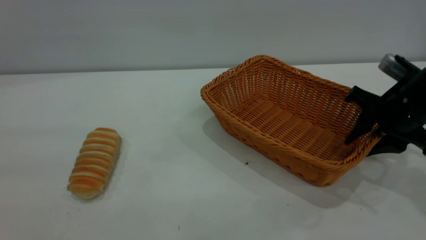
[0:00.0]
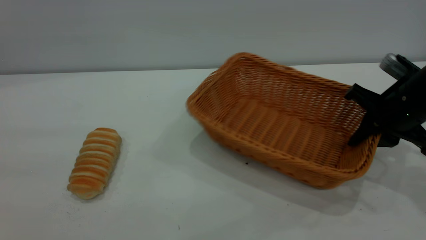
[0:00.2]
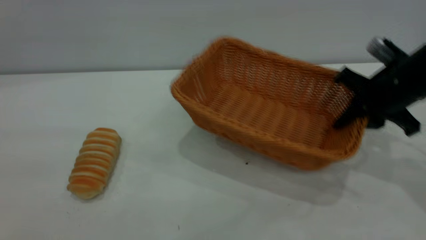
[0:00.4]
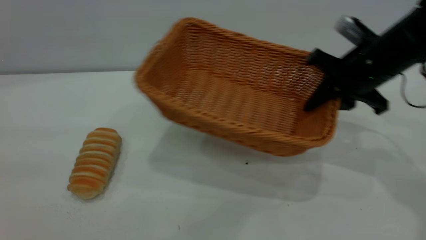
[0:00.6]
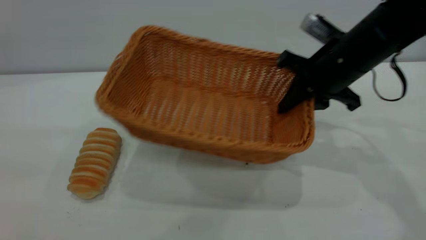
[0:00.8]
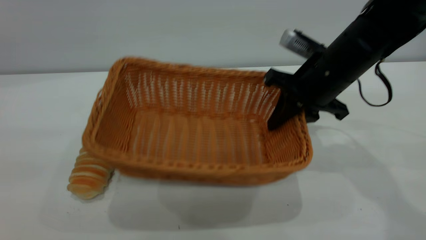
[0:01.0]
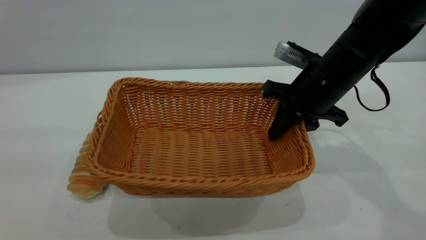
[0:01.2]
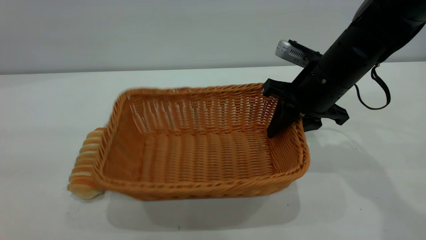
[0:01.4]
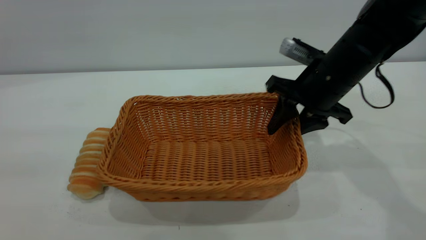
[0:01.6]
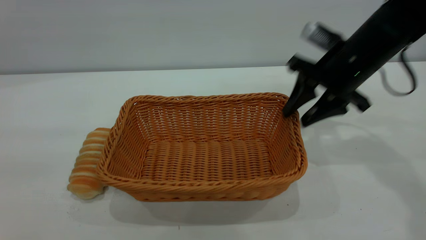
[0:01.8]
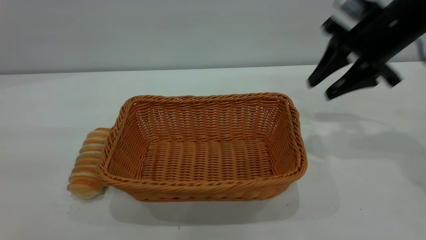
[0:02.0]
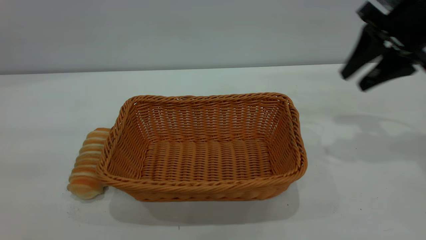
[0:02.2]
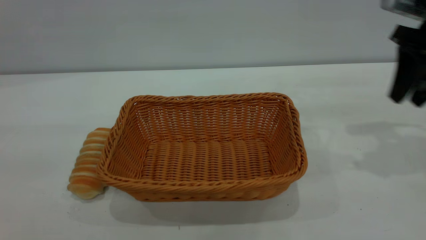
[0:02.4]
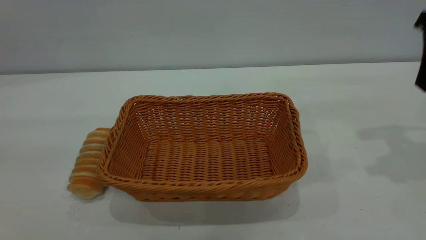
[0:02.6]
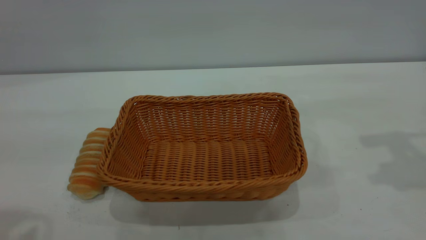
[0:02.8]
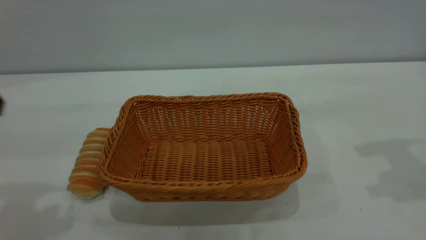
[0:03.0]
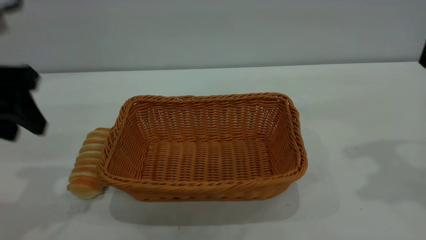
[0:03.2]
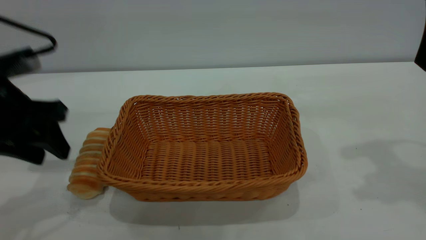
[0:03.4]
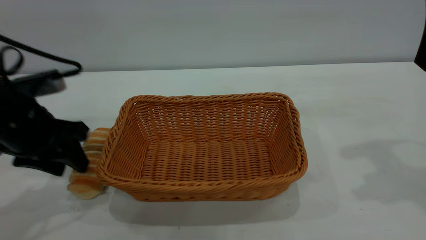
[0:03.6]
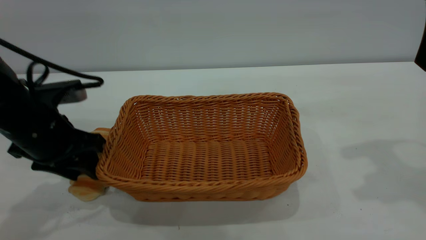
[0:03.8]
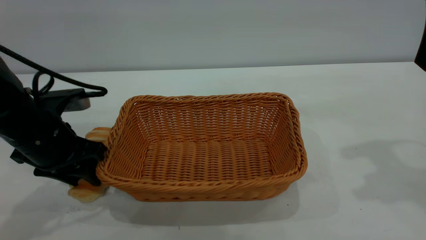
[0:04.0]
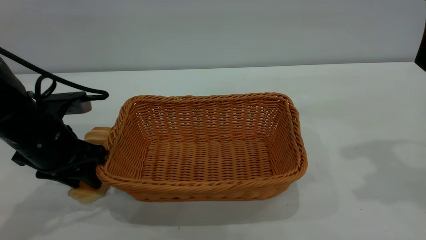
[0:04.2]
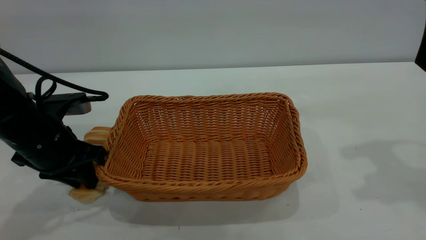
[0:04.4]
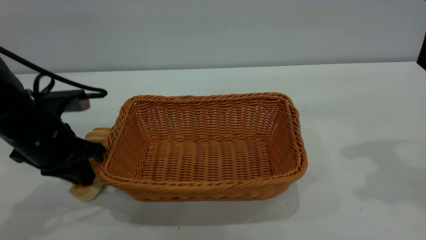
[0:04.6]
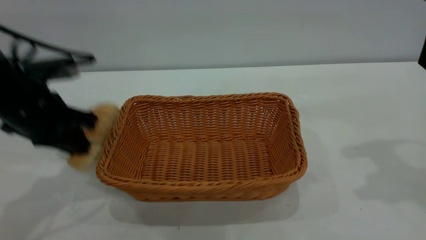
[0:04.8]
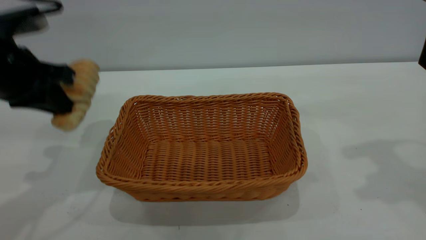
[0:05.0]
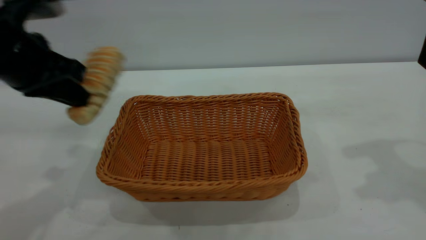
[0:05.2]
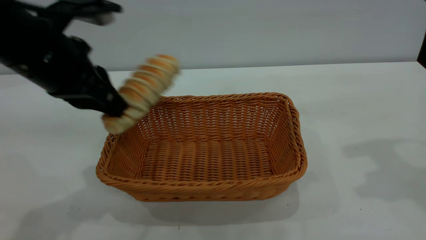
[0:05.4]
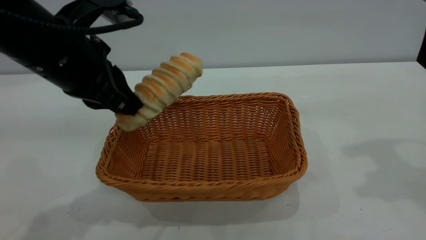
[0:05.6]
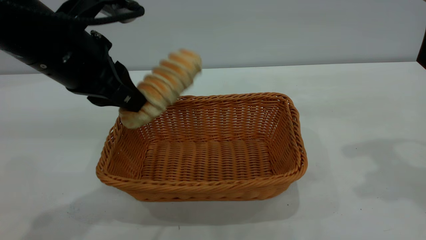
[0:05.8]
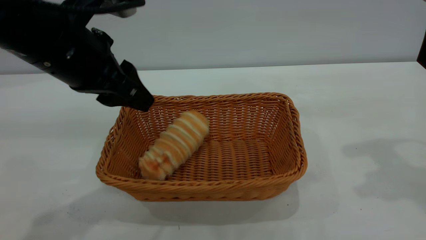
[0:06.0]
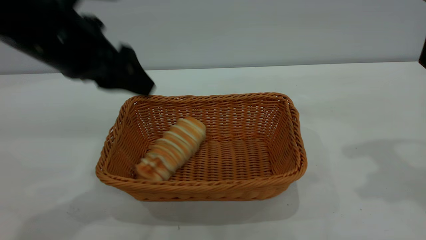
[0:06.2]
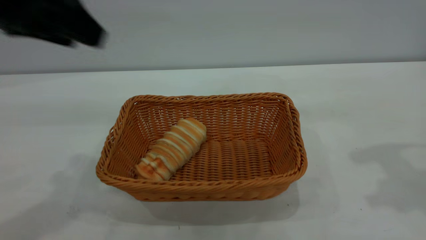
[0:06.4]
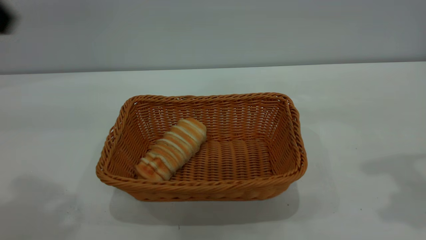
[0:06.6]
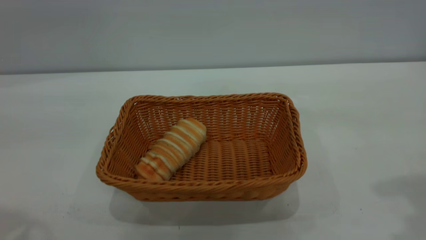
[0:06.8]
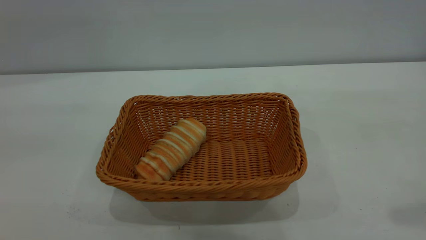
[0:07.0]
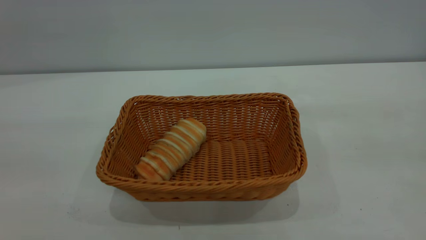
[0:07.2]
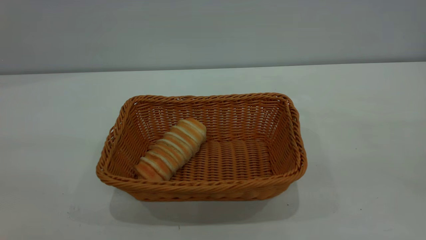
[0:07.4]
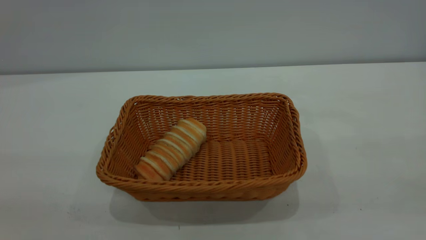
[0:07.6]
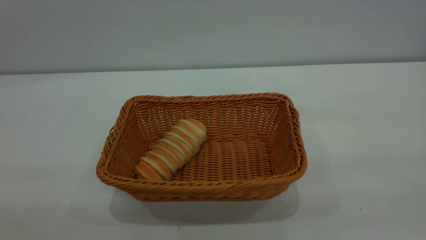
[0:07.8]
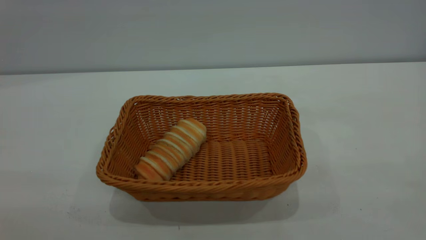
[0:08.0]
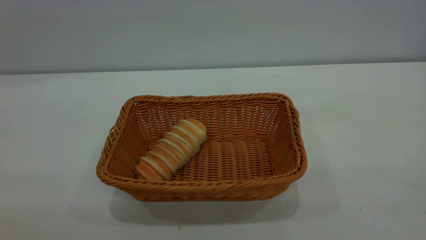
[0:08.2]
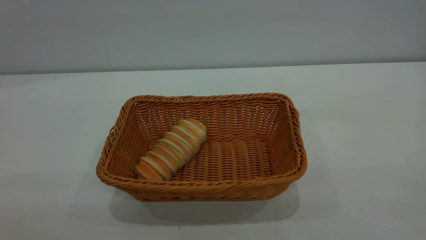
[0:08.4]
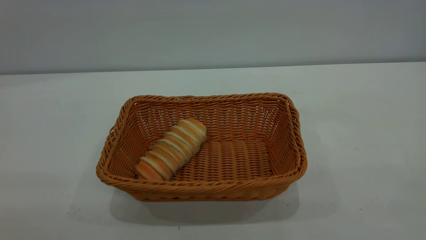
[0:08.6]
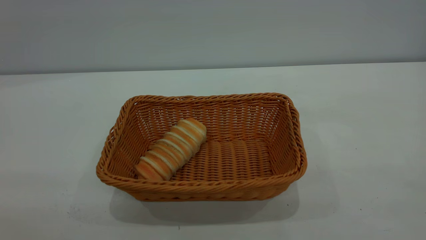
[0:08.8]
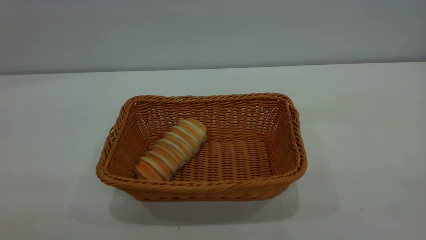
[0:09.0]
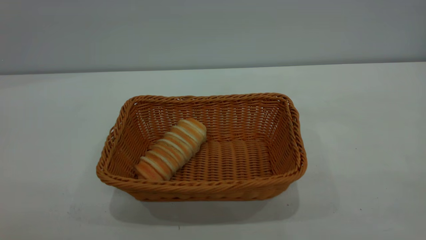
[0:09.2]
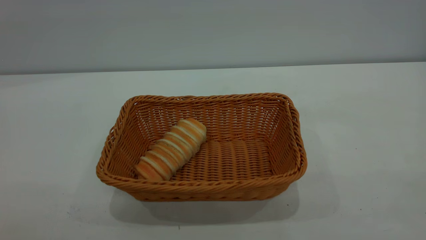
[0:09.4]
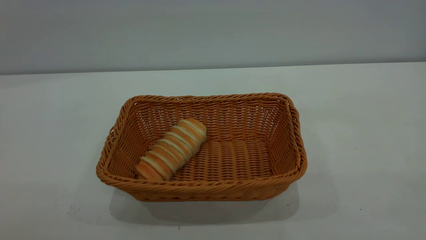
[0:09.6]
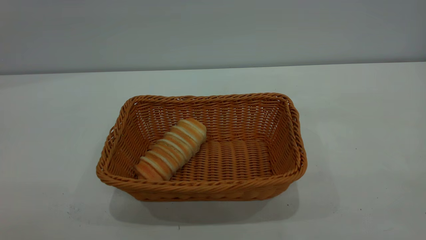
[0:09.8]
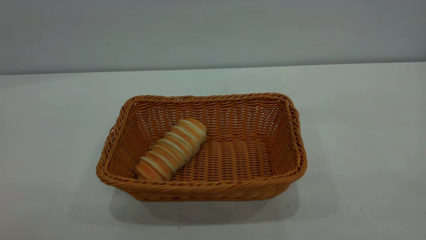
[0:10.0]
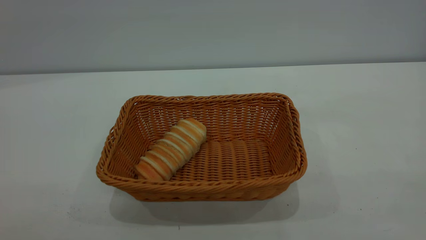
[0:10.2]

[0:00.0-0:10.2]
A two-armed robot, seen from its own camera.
Task of the whole recording: One hand grasps the yellow basket and places it in the middle of the table, while the other hand picks up the long bread and puts it into the yellow basket.
Step, 0:05.2 to 0:06.2: place the bread into the basket.
0:00.0 to 0:01.4: The right gripper travels to the left by some 10 cm, and closes, then opens again.
0:01.4 to 0:03.0: The left gripper heads forward and downward, covering roughly 20 cm; the right gripper travels upward, to the right and backward by some 25 cm, and opens.
0:03.0 to 0:04.4: The left gripper travels downward by some 15 cm, and closes up.
0:04.4 to 0:05.8: The left gripper is displaced upward and to the right by about 15 cm.
0:05.8 to 0:07.2: The left gripper heads backward, upward and to the left, covering about 30 cm, and opens up. Meanwhile the right gripper is displaced backward by approximately 20 cm.

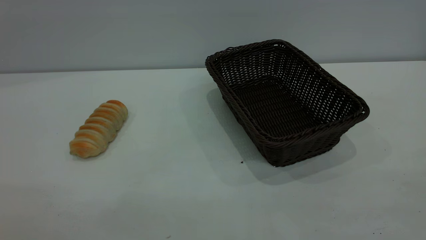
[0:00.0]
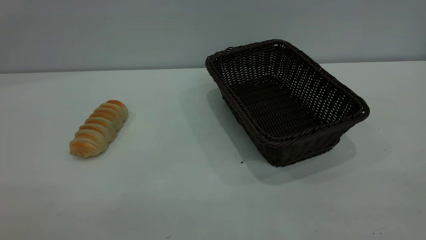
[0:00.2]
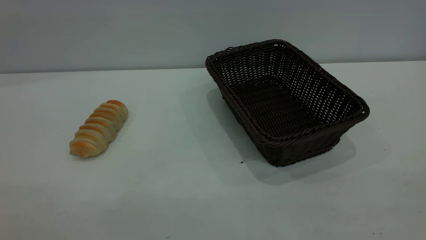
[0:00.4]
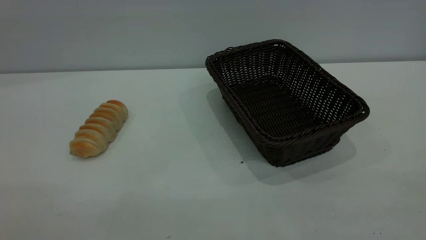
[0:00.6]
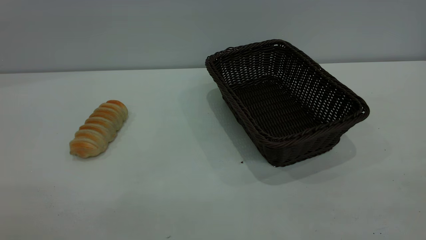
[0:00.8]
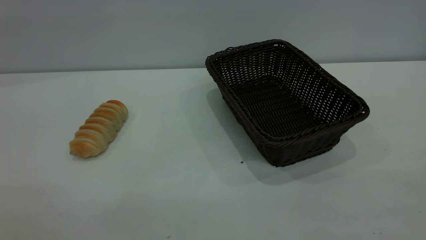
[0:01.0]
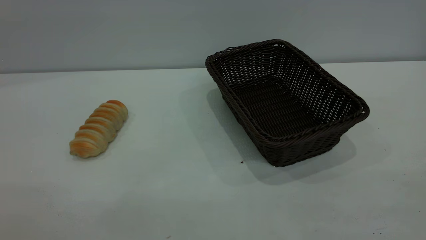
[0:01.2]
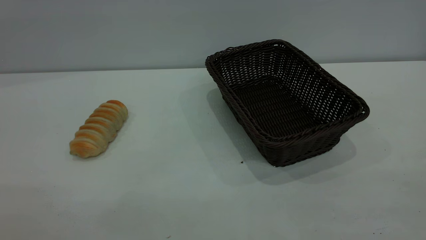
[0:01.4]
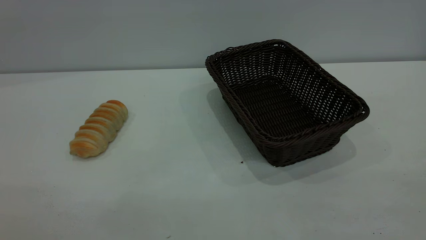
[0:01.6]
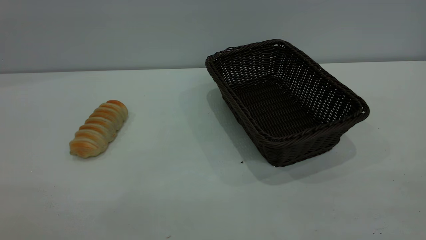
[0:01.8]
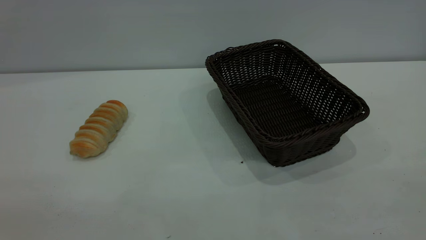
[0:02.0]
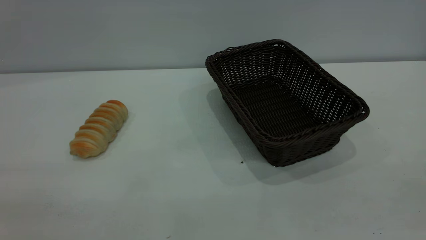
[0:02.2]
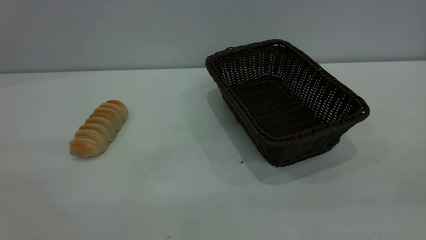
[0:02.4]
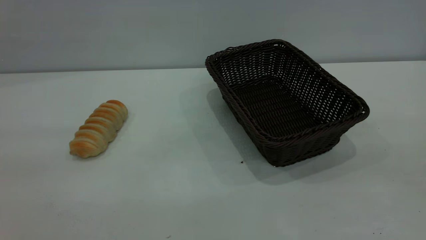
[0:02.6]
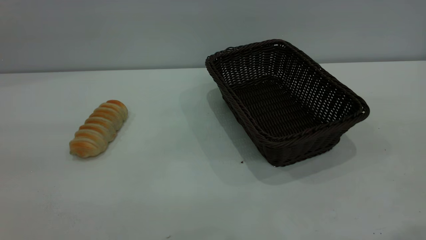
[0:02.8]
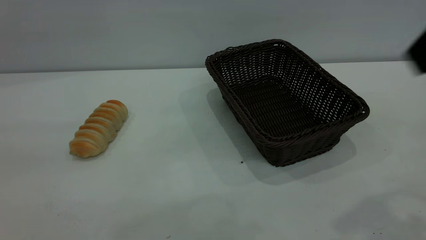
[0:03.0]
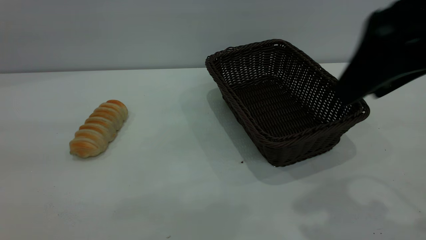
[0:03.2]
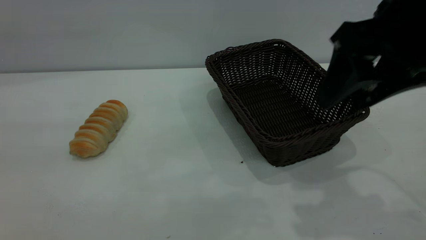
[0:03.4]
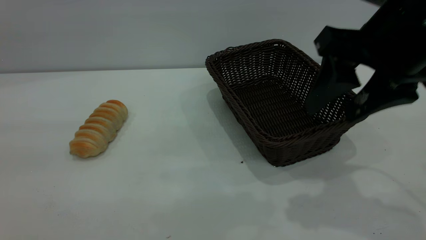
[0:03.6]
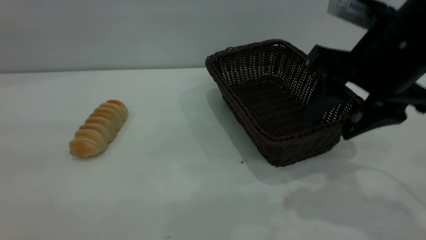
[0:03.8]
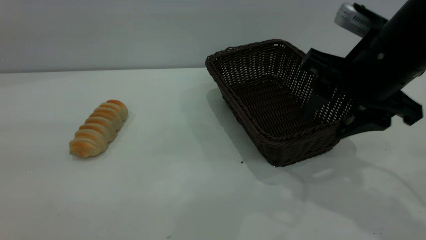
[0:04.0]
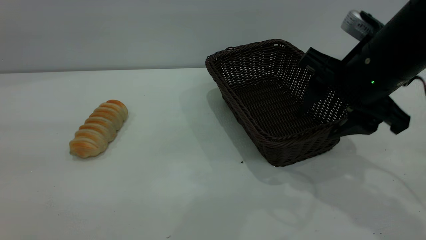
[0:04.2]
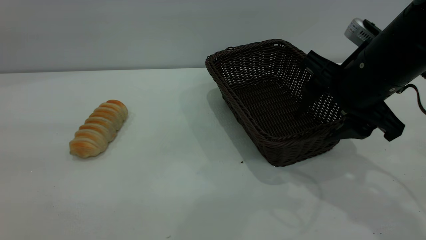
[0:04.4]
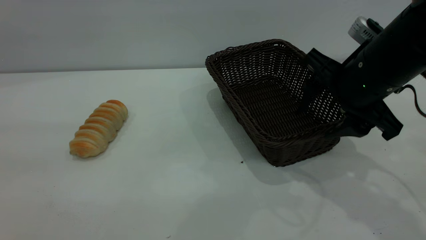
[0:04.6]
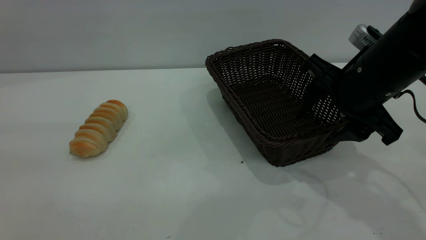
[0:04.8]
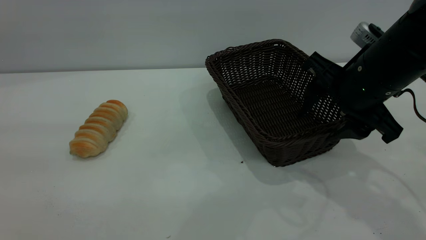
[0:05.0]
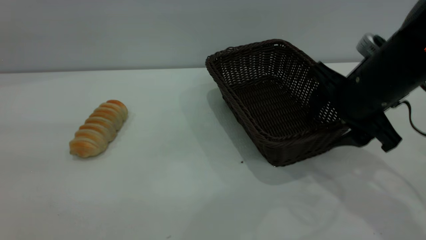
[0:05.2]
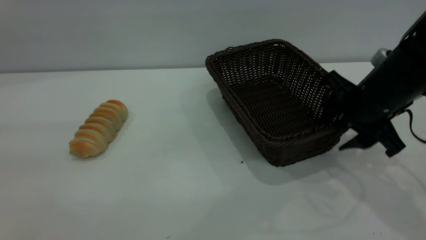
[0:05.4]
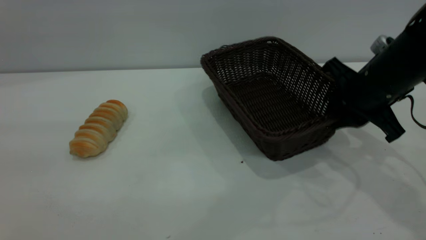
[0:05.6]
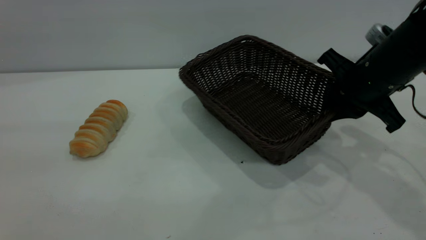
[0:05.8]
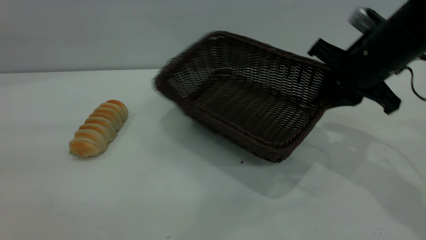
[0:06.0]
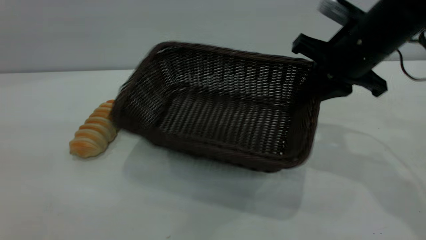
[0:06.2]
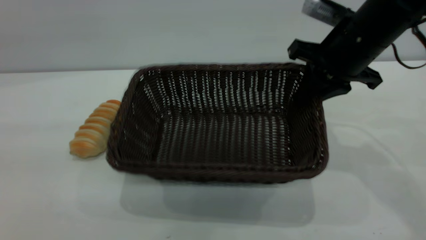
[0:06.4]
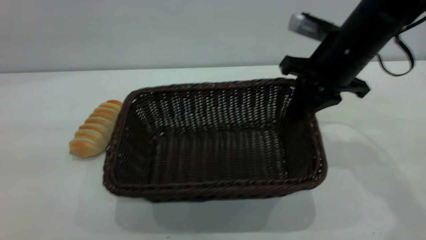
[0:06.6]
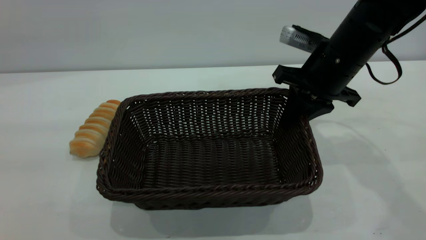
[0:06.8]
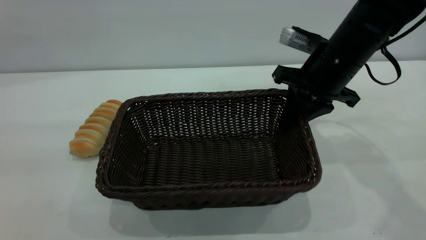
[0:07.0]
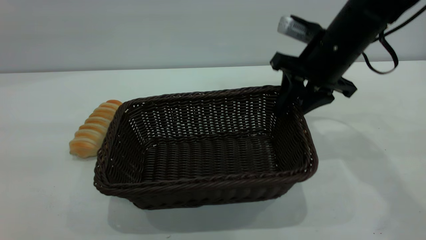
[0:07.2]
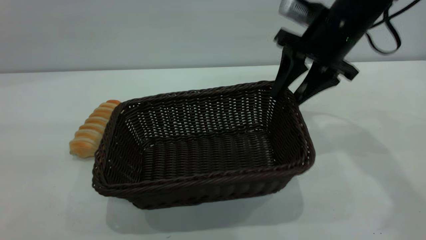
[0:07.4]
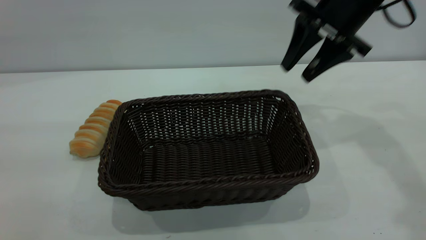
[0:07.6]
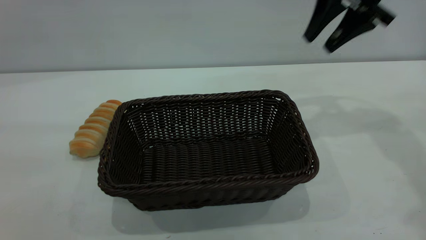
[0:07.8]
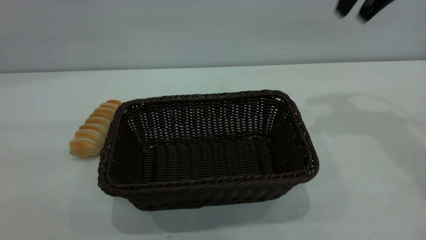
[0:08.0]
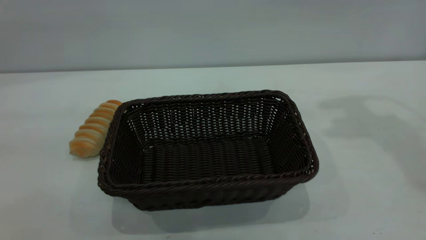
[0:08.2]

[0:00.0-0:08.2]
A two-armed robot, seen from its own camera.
Task of the whole recording: One hand grasps the black basket and places it in the middle of the table, while the other hand picks up the long bread and puts it into the black basket.
Step, 0:00.0 to 0:07.4: Move the basket to the center of view.
0:00.0 to 0:01.6: Both grippers stay put.
0:01.6 to 0:03.2: The right gripper shifts approximately 25 cm forward and to the left.
0:03.2 to 0:05.0: The right gripper goes roughly 15 cm downward and forward.
0:05.0 to 0:06.6: The right gripper is displaced forward by roughly 5 cm, and closes up.
0:06.6 to 0:08.2: The right gripper travels upward by approximately 25 cm, and opens.
